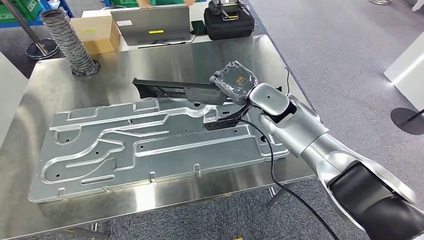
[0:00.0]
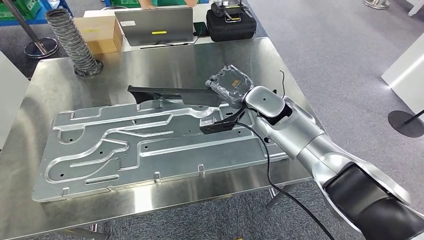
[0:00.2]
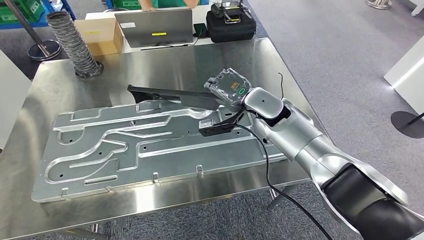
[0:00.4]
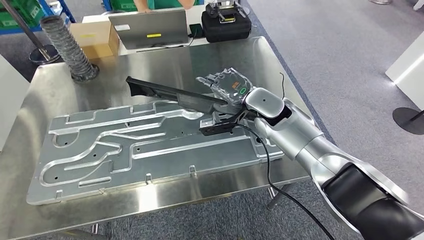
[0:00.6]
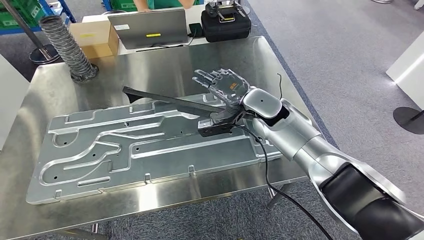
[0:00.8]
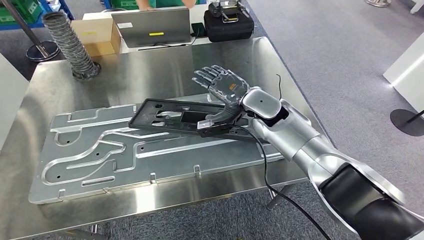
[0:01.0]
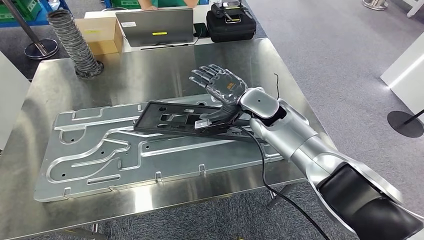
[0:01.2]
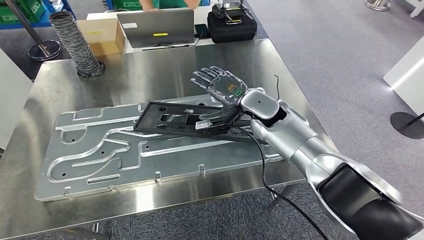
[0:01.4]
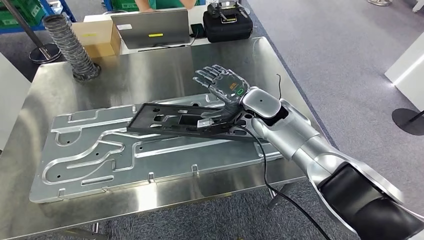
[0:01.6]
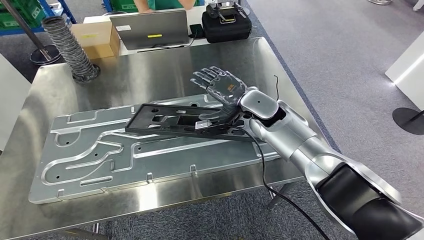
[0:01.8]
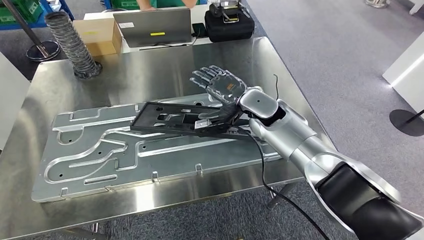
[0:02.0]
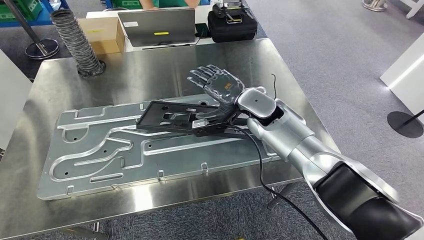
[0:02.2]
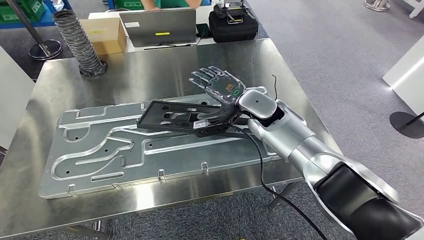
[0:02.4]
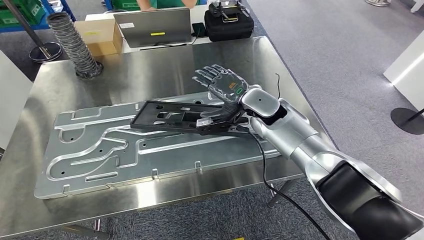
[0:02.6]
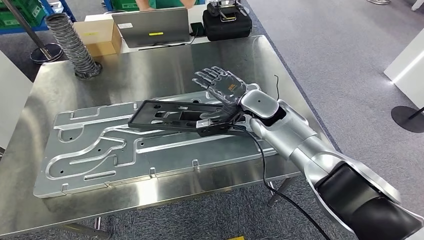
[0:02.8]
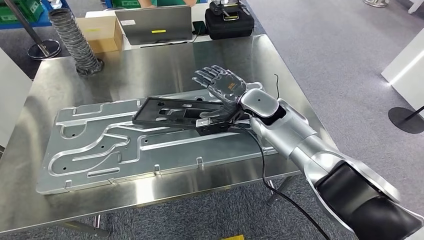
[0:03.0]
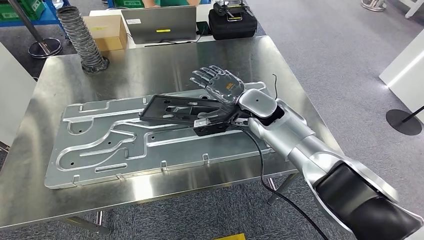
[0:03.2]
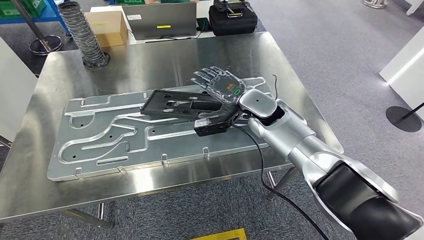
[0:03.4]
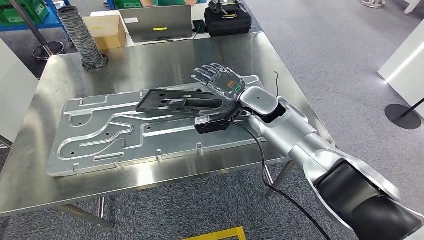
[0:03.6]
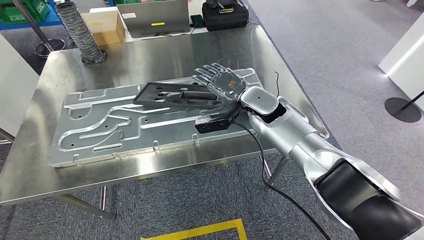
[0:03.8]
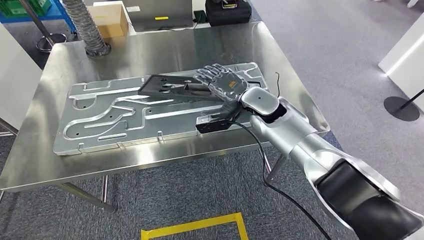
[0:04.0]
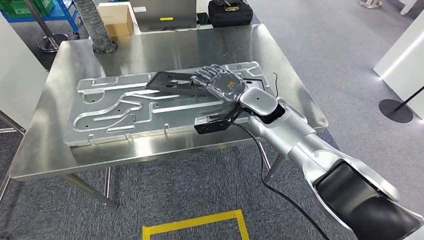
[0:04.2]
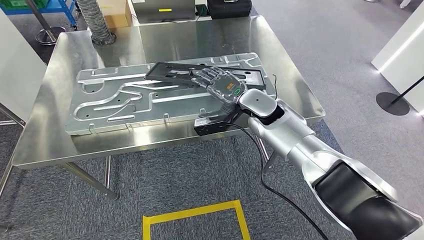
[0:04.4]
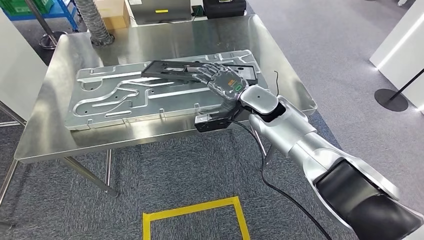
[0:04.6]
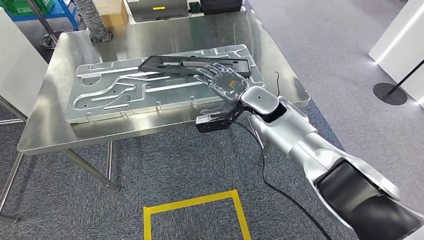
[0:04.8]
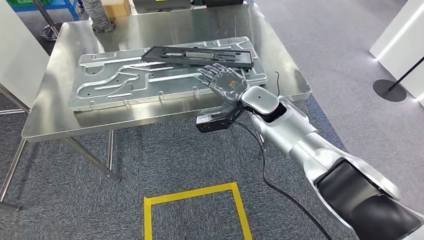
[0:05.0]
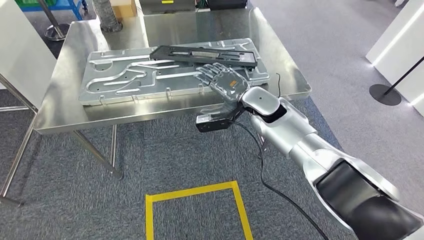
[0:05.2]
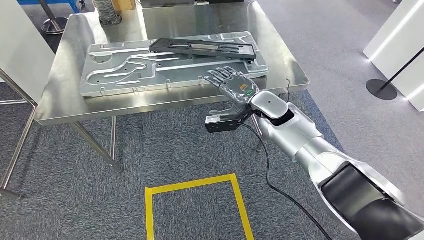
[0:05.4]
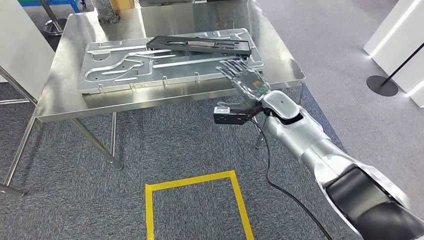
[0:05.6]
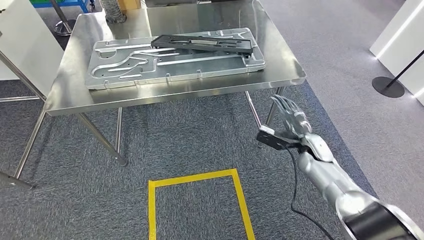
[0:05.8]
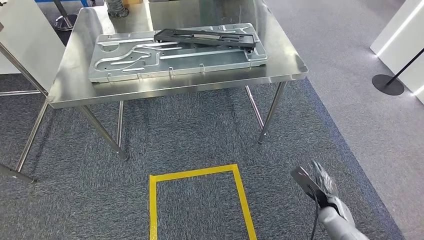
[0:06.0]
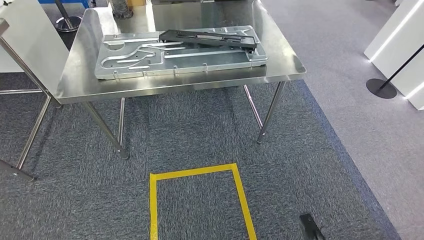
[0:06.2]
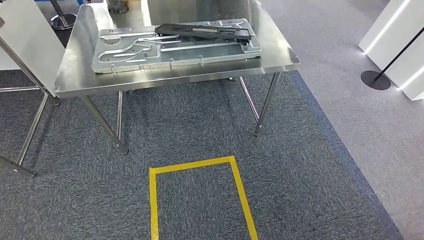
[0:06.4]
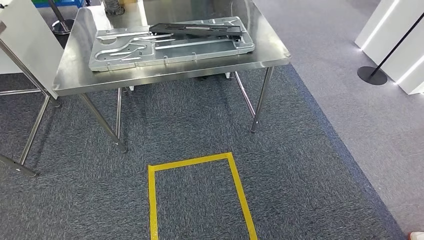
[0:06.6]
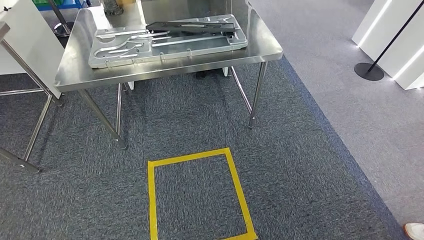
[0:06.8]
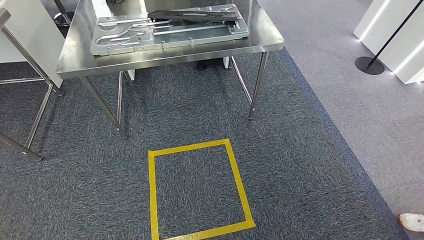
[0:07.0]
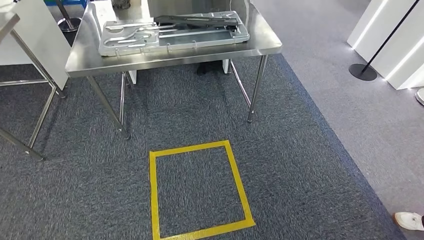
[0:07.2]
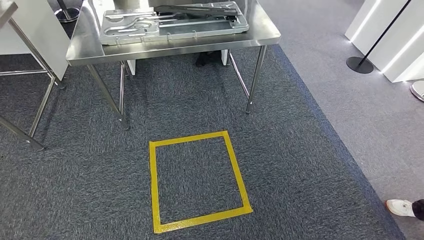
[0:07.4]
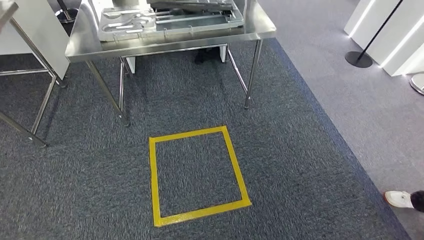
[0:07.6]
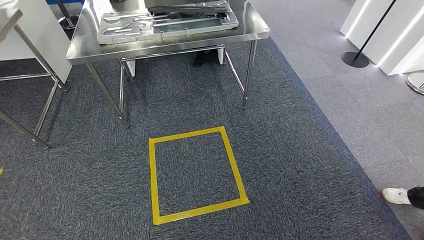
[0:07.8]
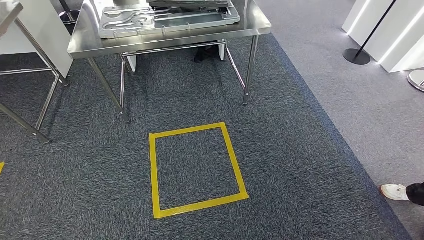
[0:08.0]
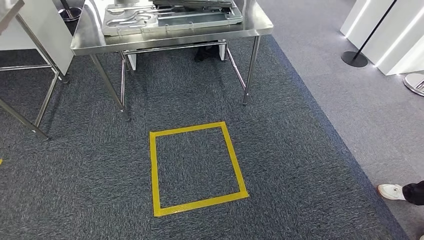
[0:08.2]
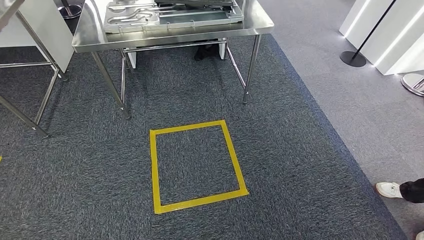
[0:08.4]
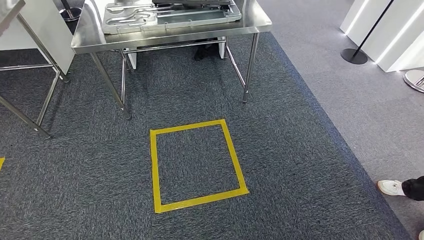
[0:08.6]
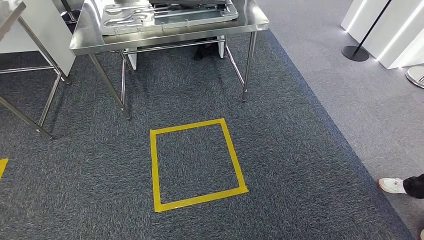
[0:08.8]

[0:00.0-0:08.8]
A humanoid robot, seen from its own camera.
Step, 0:00.0 to 0:04.0: Insert the large material into the corresponding slot on the workbench.
Step, 0:05.2 to 0:08.8: Return to the initial position at the shelf.
